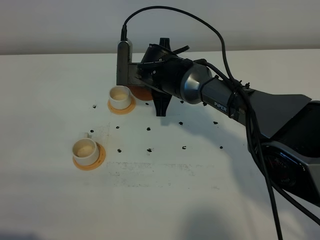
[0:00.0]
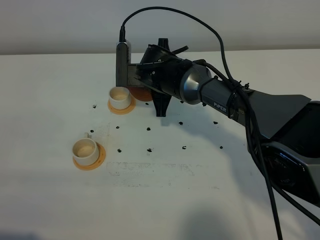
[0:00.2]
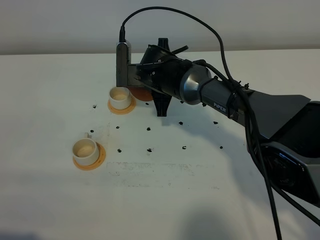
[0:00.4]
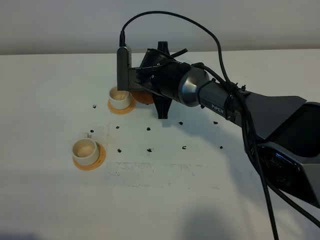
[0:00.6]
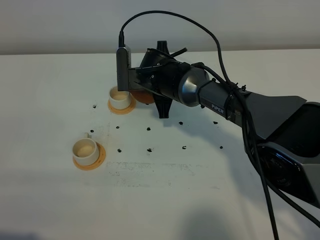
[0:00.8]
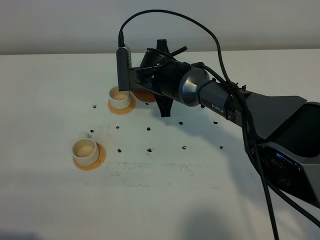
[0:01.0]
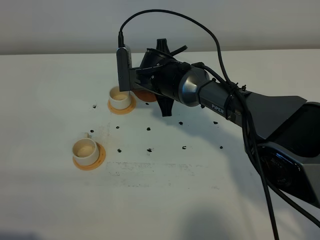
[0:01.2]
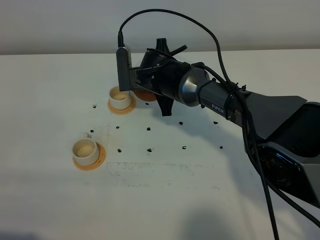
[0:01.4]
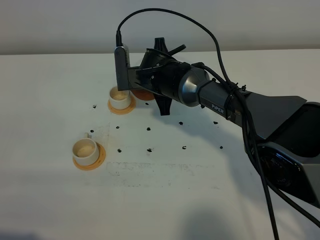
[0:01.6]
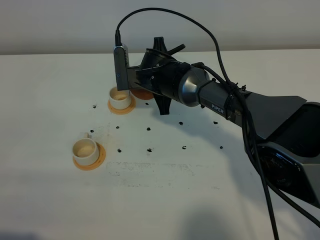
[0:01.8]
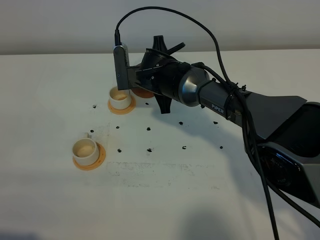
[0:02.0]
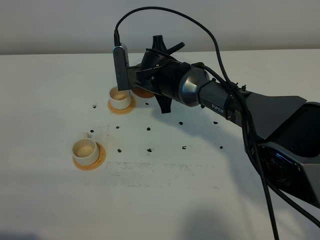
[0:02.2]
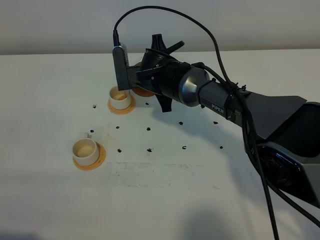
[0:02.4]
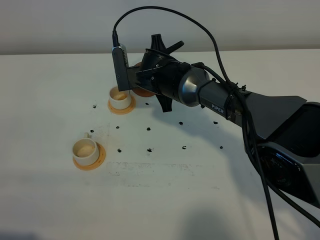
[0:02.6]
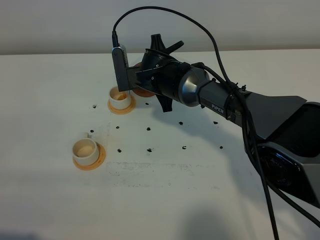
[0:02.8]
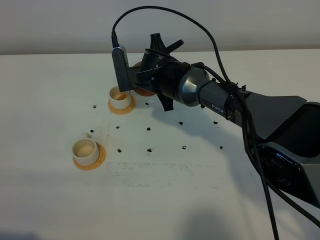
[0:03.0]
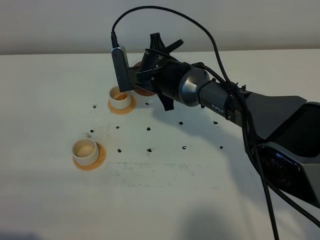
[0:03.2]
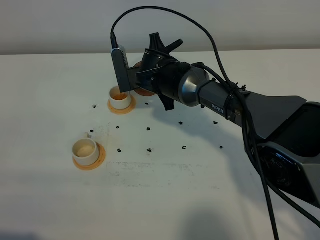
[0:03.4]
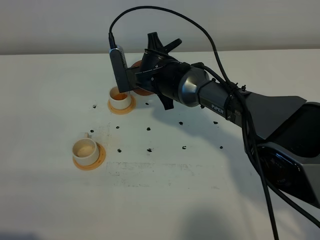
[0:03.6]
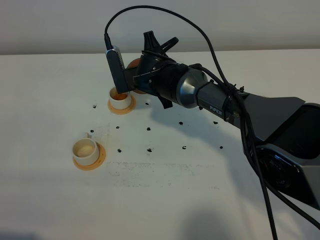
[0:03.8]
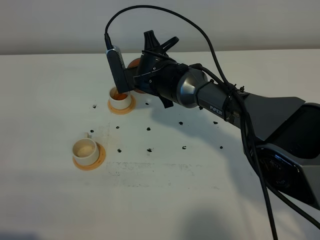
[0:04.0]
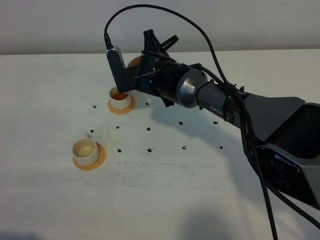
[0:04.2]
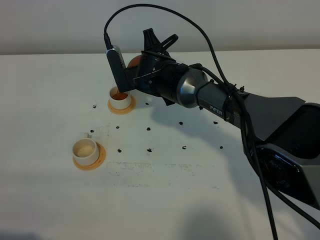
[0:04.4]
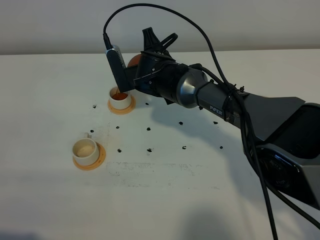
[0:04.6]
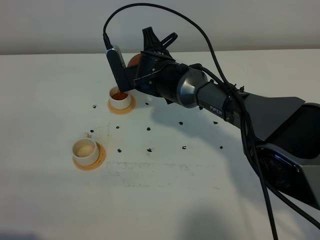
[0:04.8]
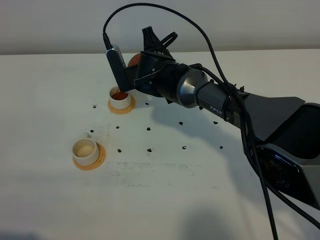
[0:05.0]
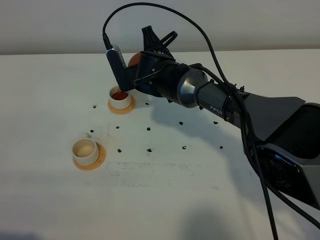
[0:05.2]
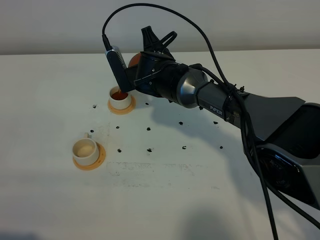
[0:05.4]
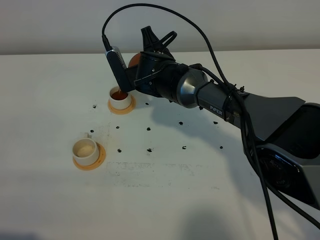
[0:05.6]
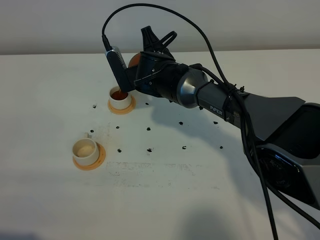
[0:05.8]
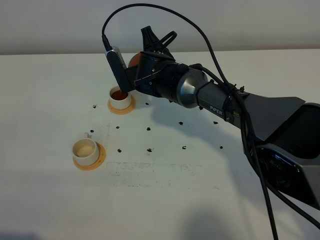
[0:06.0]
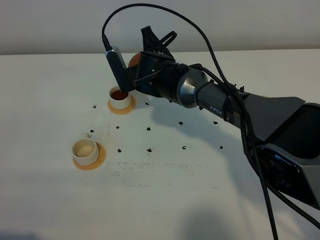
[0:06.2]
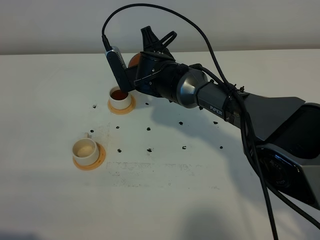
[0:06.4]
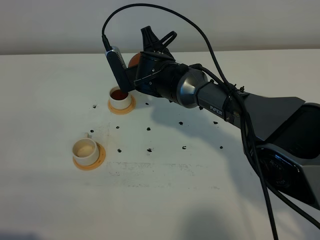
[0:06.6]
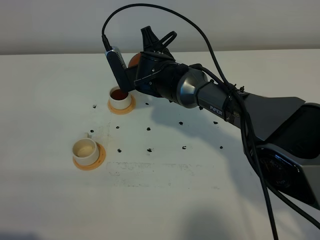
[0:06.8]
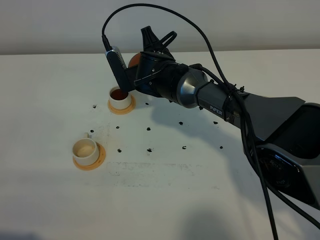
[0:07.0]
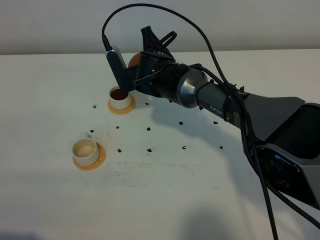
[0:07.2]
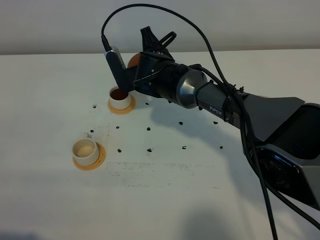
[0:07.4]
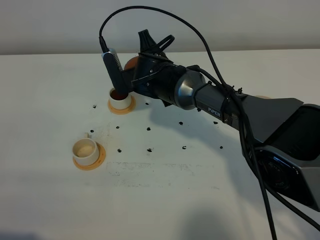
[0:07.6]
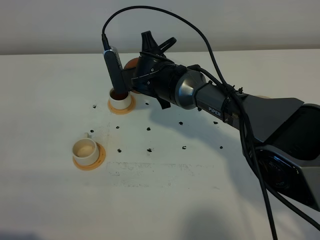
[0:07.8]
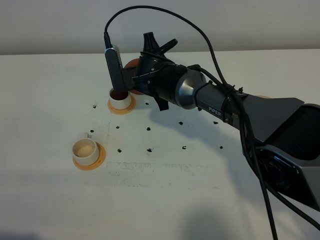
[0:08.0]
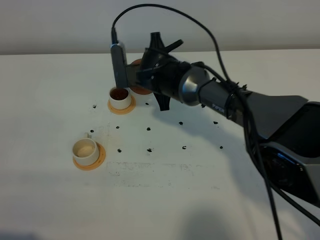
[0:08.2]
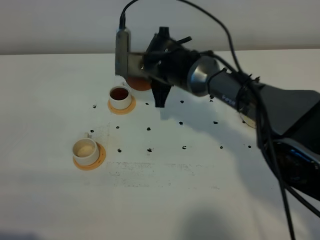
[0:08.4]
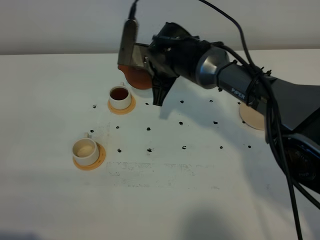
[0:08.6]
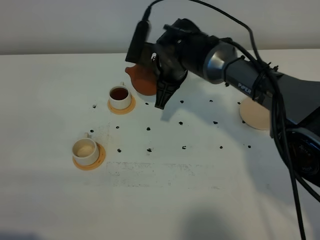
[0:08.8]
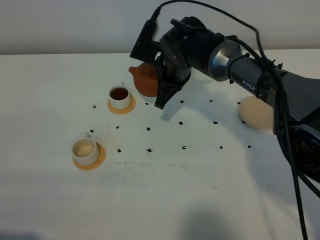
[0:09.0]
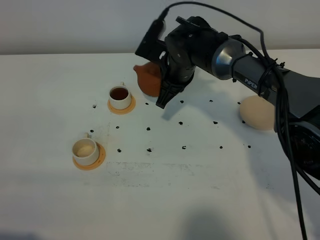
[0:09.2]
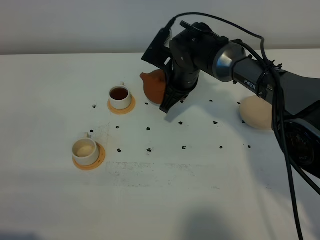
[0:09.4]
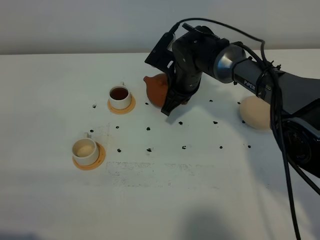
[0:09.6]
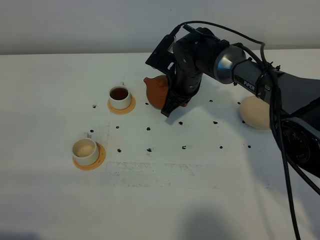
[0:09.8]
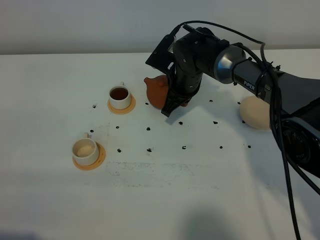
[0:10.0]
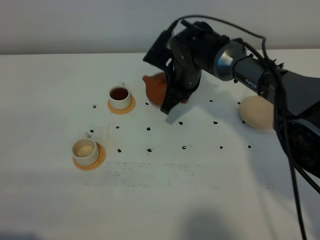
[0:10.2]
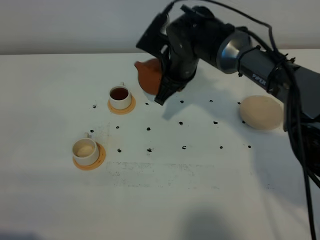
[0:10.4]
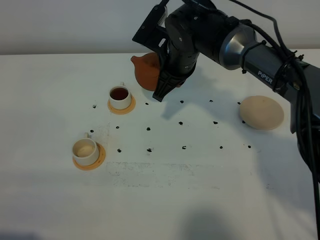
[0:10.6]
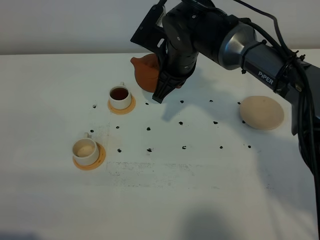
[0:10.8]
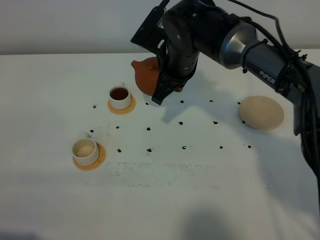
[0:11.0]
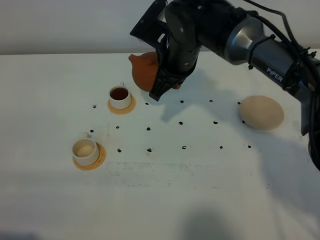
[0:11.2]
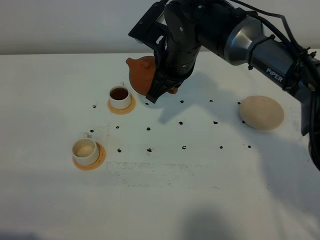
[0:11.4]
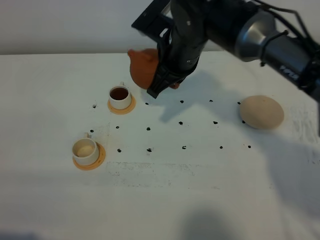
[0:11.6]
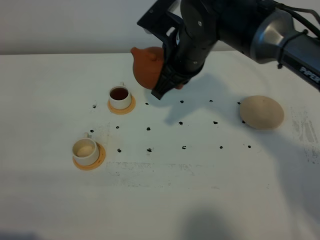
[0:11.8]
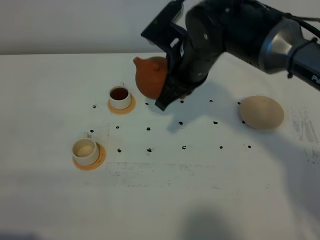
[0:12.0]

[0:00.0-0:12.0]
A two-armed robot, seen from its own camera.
Task of the whole recording: grasp the brown teapot and pour the tea into the two white teacups one by one, put the brown teapot back in its original place.
0:00.0 to 0:03.0: The grippers make only small movements.
0:03.0 to 0:04.4: The grippers make only small movements.
0:04.4 to 0:07.6: The two grippers keep their place.
0:09.0 to 0:10.4: The grippers make only small movements.
0:10.4 to 0:12.0: The right gripper is displaced backward and upward by approximately 10 cm.

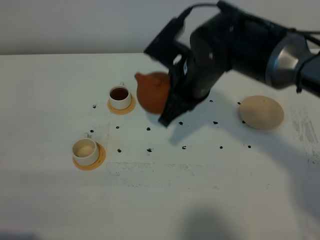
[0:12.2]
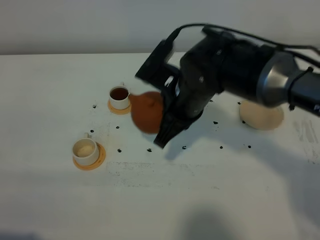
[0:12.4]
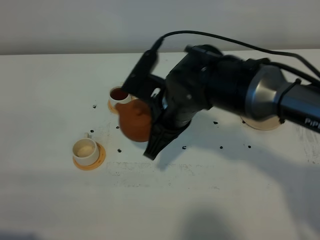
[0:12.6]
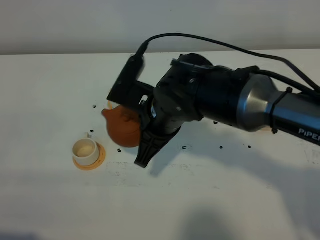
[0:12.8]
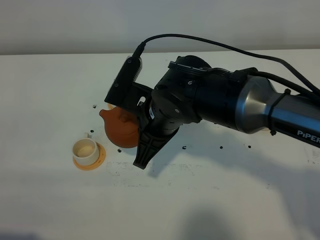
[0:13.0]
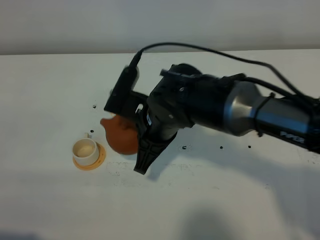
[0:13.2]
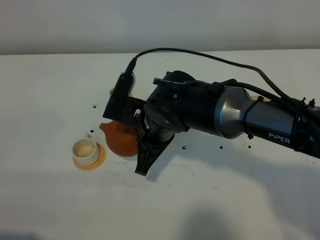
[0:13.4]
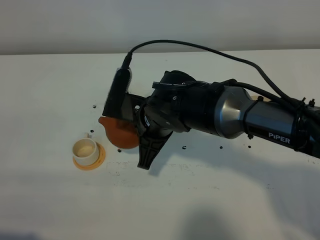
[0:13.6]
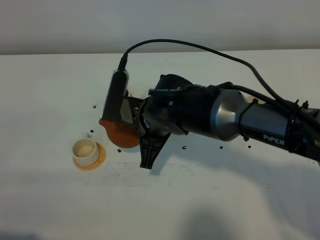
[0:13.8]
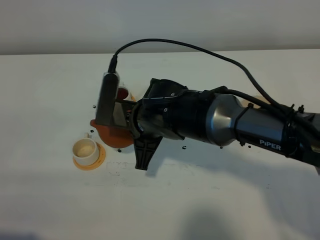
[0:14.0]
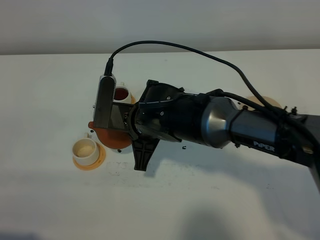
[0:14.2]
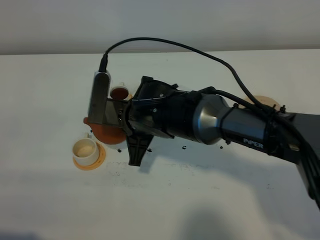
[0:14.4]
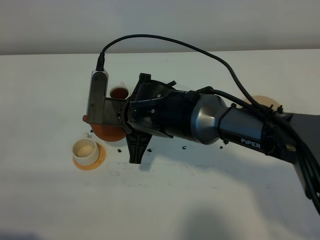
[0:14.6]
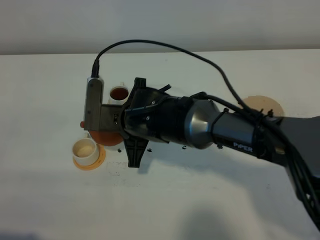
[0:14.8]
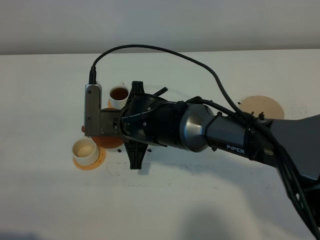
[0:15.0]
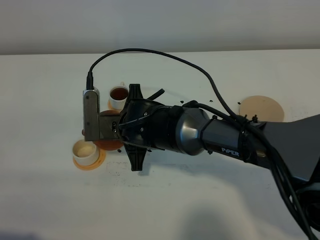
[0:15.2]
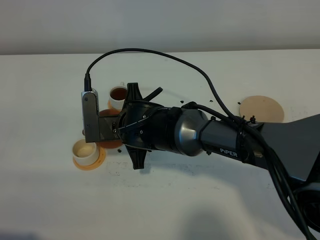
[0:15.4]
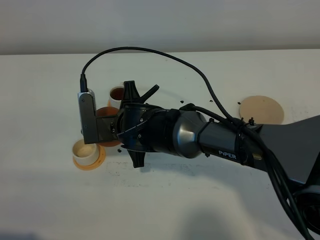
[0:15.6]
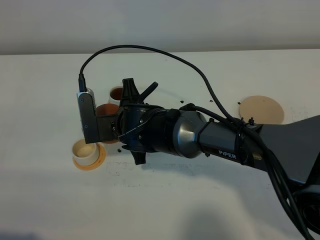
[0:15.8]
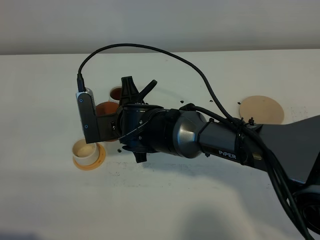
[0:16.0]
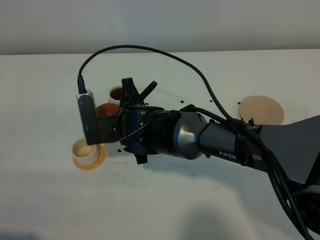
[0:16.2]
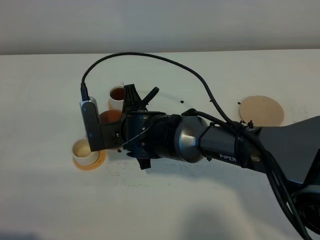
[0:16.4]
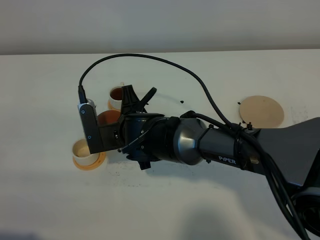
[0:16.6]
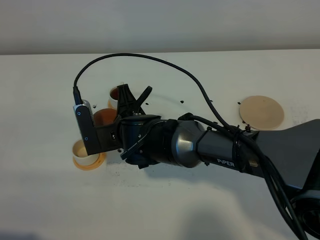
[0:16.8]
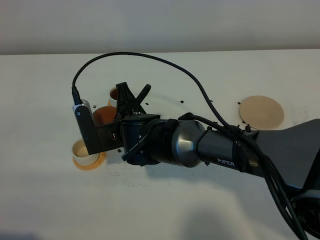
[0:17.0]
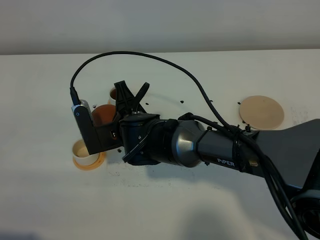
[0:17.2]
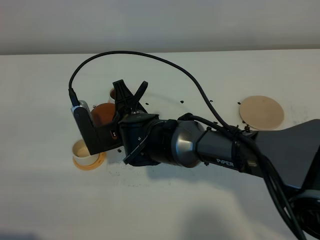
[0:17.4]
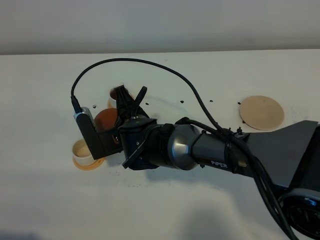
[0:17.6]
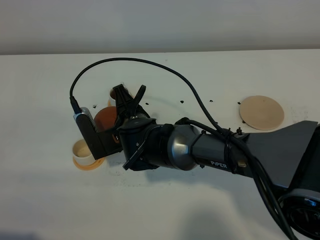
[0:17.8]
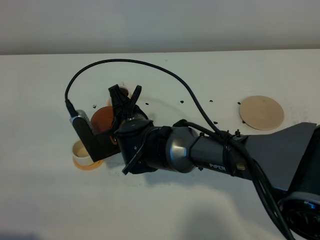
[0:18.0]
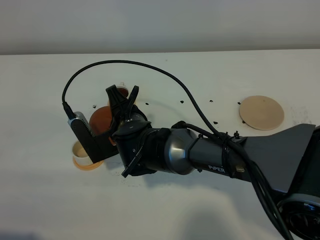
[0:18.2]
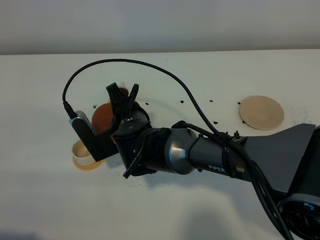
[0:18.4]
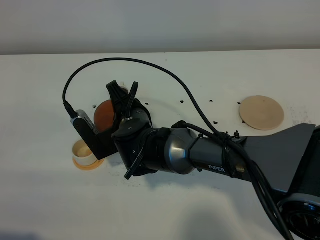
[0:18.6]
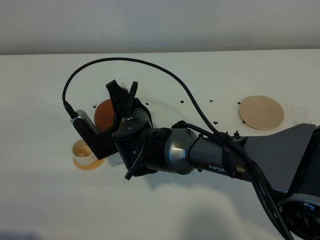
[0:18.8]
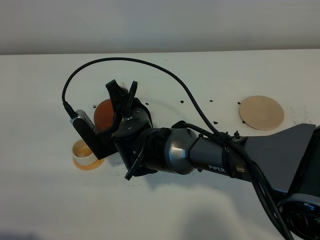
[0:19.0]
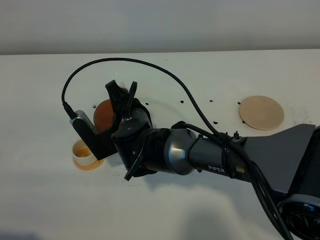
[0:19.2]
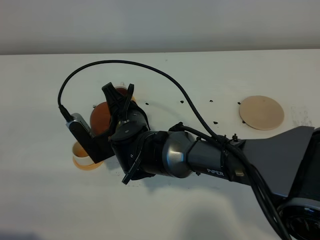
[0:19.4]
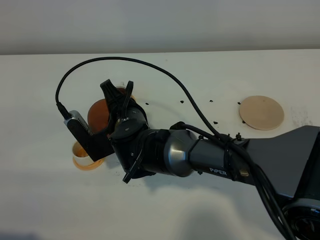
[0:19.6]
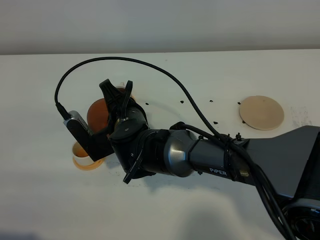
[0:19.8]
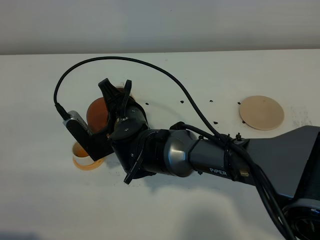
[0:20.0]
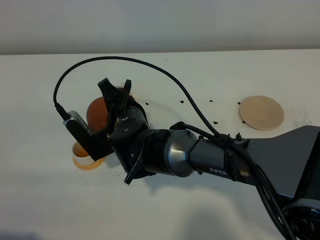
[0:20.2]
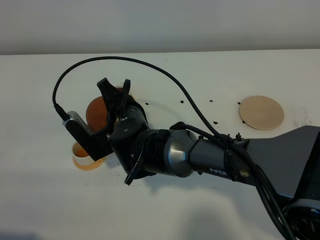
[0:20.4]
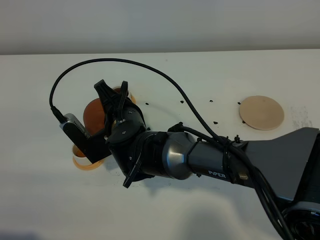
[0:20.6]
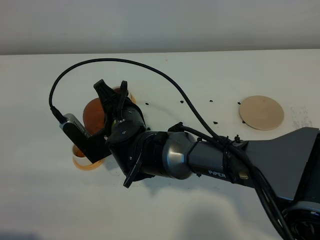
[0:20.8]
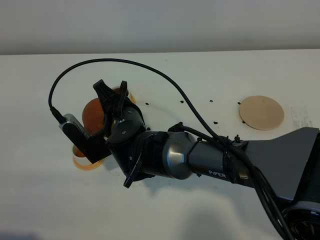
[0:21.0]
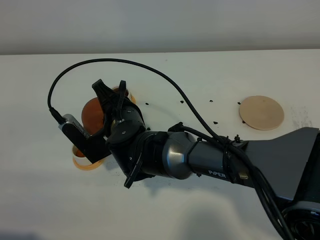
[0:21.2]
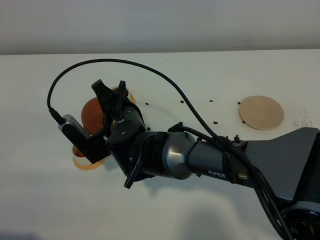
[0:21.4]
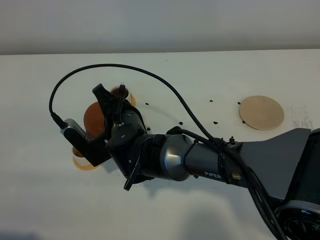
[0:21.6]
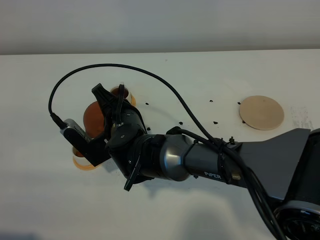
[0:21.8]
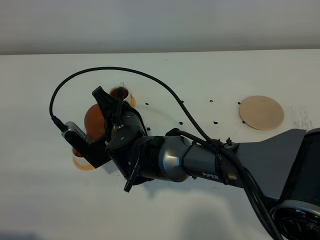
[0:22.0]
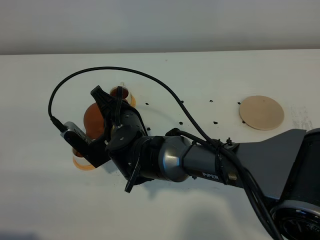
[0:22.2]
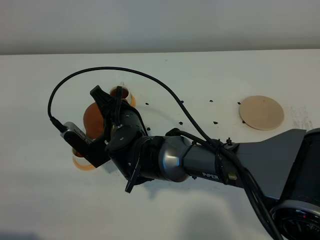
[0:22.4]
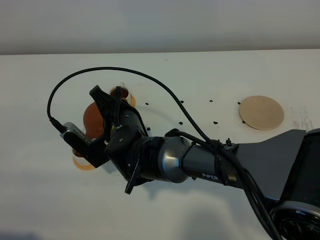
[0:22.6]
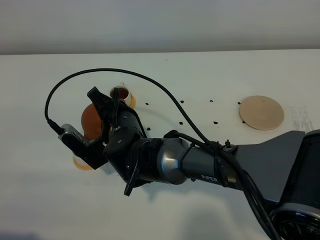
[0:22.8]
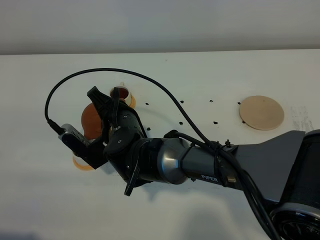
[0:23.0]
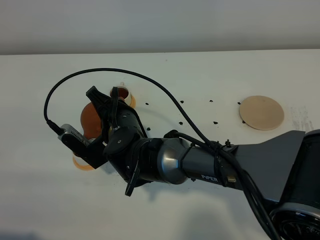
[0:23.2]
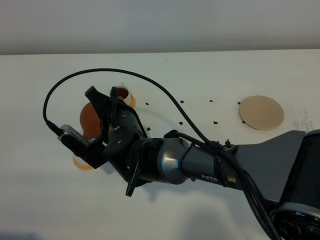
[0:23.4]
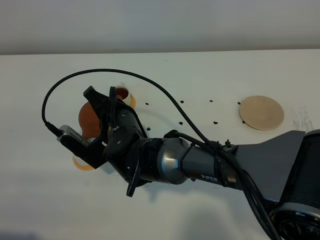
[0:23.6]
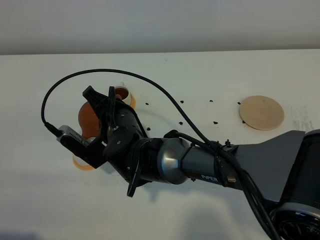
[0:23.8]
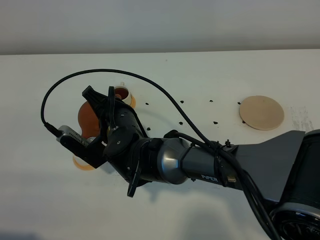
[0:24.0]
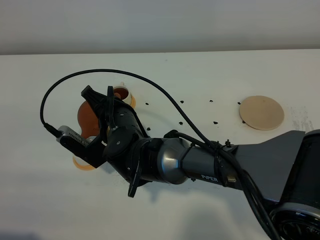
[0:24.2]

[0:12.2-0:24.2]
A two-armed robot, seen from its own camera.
Task of the whole recording: grasp the brown teapot and pour the tea into the two white teacups one by one, put the brown teapot back in its original place.
0:12.2 to 0:13.8: The right gripper travels to the left and downward by some 10 cm.
0:13.8 to 0:15.2: The right gripper changes place by roughly 5 cm.
0:15.2 to 0:16.6: The grippers move only a little.
0:16.6 to 0:18.2: There are only small adjustments of the grippers.
0:18.2 to 0:19.8: The grippers move only a little.
0:19.8 to 0:21.2: Both grippers stay put.
0:21.2 to 0:24.2: The grippers stay close to where they were, moving slightly.
